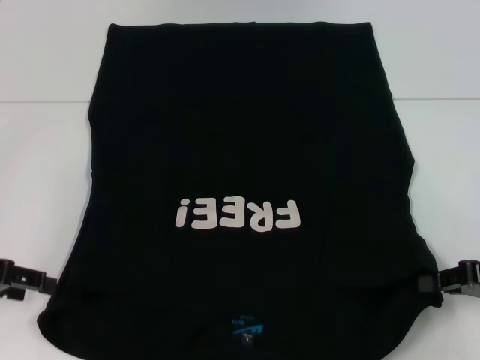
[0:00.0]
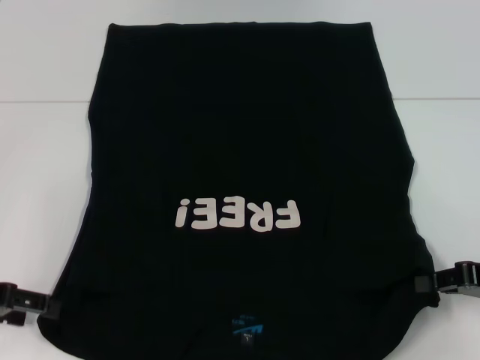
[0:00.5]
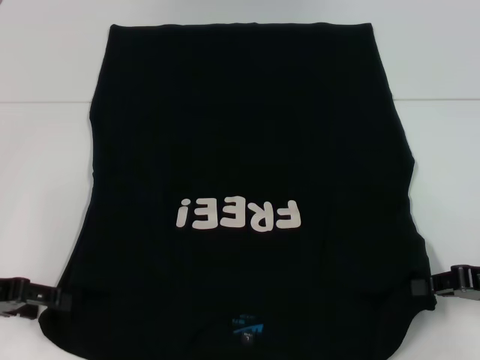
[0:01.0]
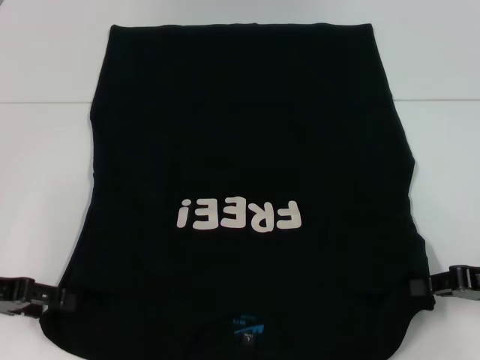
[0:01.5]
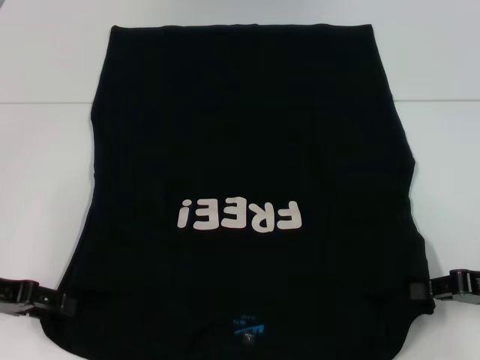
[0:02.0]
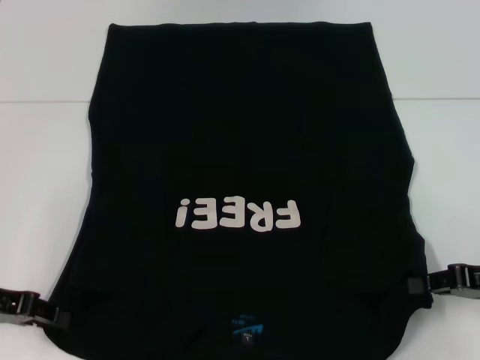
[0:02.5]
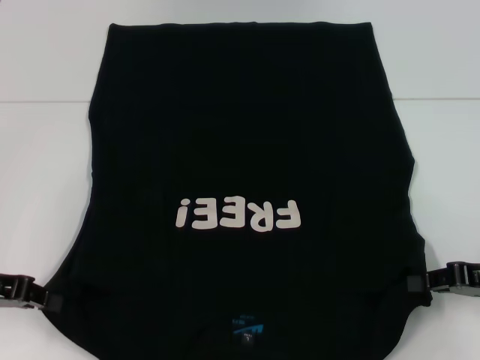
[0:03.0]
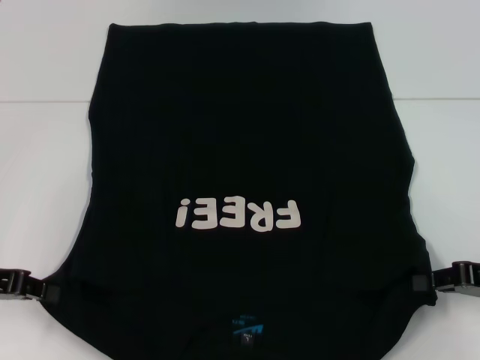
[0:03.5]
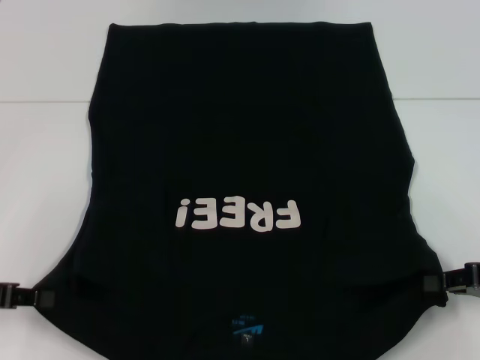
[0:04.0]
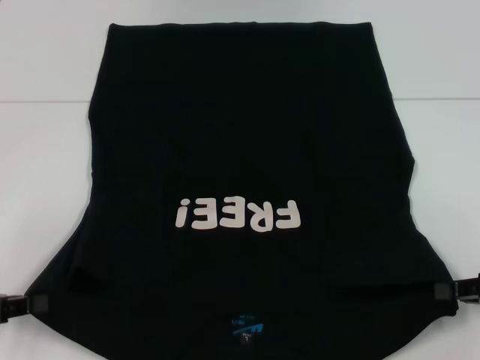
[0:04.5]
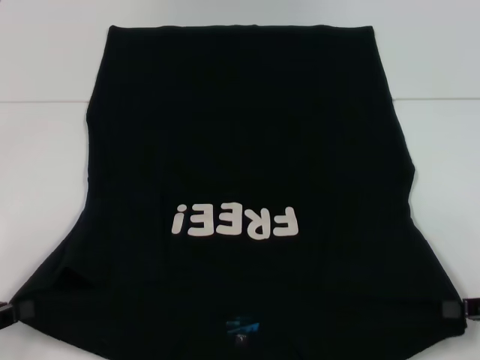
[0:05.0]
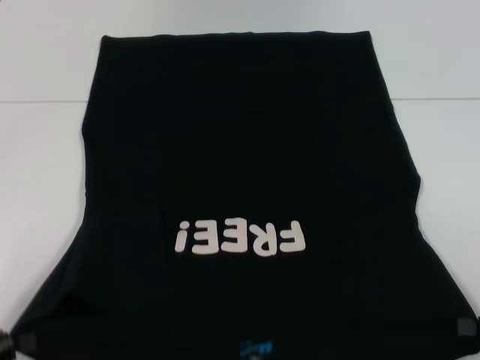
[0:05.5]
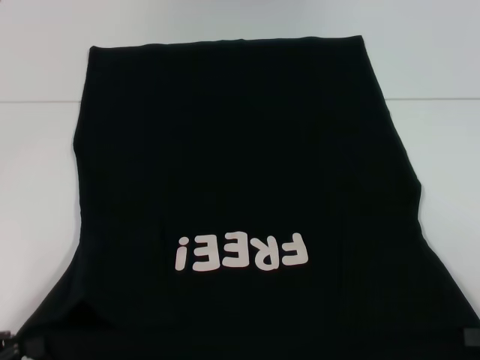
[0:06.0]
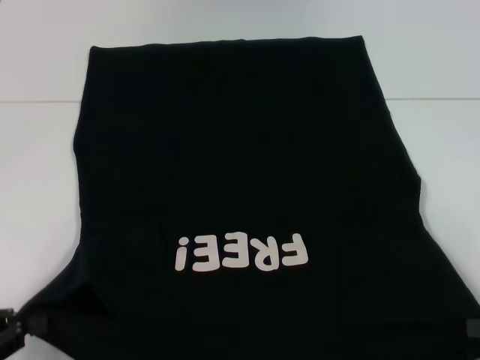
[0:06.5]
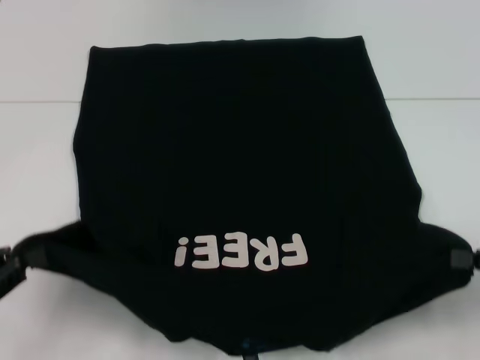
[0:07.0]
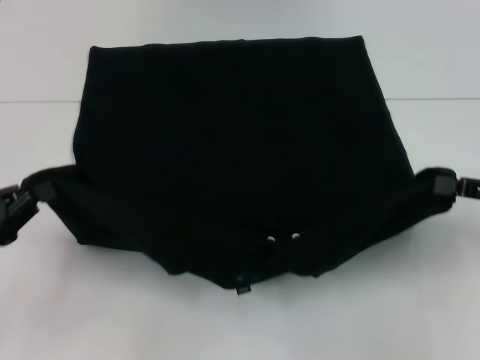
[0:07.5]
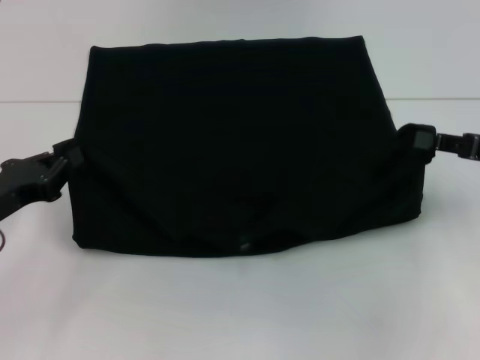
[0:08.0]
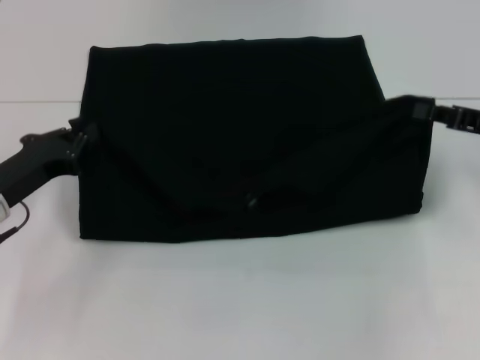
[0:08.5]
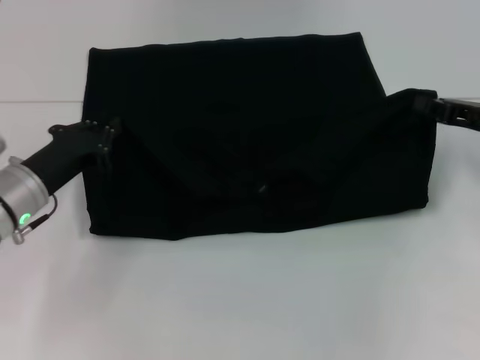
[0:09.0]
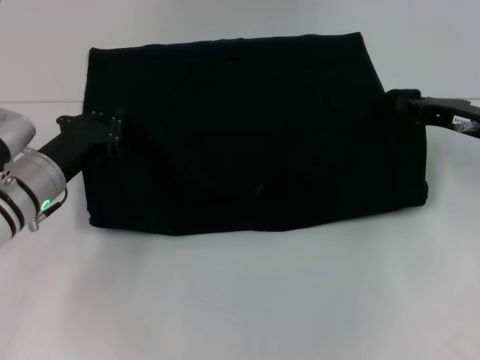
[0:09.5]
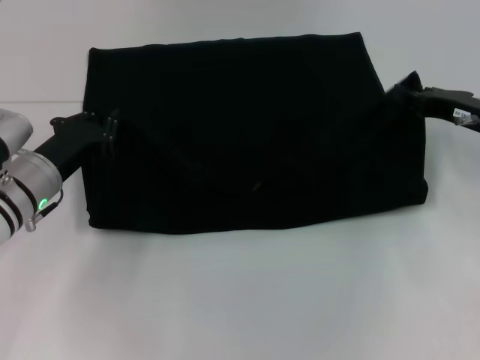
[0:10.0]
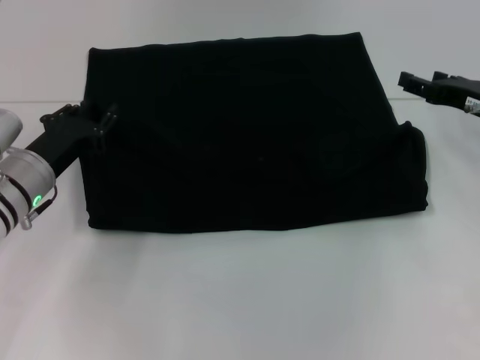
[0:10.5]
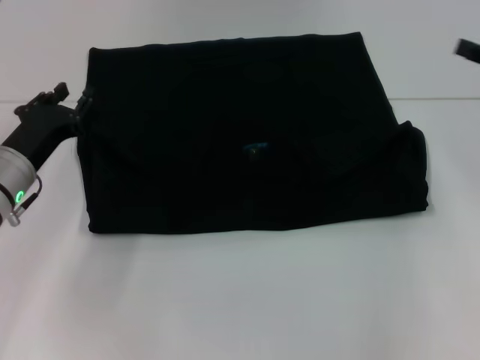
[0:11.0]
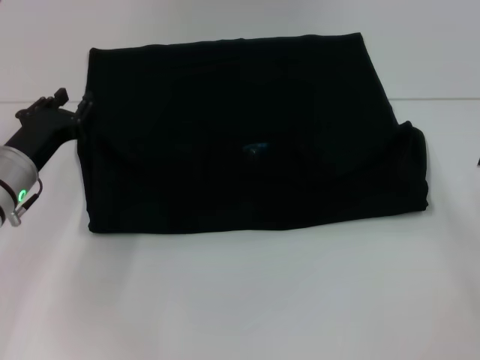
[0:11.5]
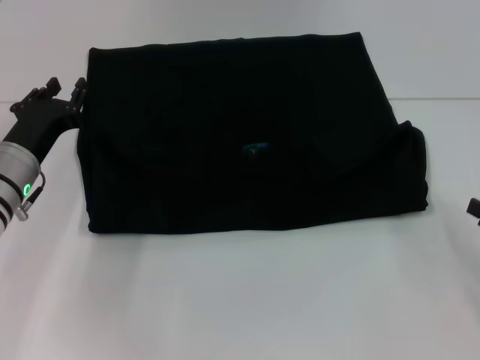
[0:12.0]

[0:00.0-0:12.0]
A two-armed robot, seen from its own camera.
Step, 0:00.0 to 0:03.0: Grab the bottom left corner with your left hand.
Step, 0:00.0 to 0:03.0: Grab the bottom right corner with your right hand.
Step, 0:03.5 to 0:10.5: Fold the clothes with your left hand.
Step, 0:03.5 to 0:10.5: Fold the clothes with your right hand.
0:00.0 to 0:02.0: The grippers move only a little.
0:02.0 to 0:04.0: The left gripper closes its fingers.
0:04.0 to 0:06.0: The left gripper moves backward, roughly 10 cm. The right gripper travels backward by some 5 cm.
0:06.0 to 0:08.0: The right gripper is displaced forward and upward by approximately 15 cm. The left gripper goes approximately 15 cm forward.
0:08.0 to 0:10.0: The right gripper is displaced forward by approximately 5 cm. The left gripper goes about 10 cm forward and to the right.
0:10.0 to 0:12.0: The right gripper heads backward, to the right and downward, covering approximately 20 cm, and opens up. Meanwhile the left gripper opens up.

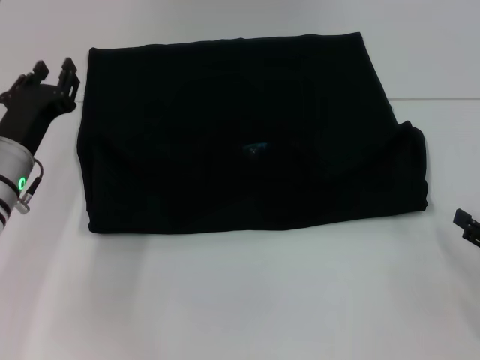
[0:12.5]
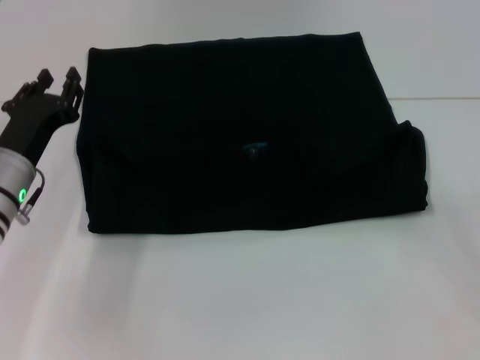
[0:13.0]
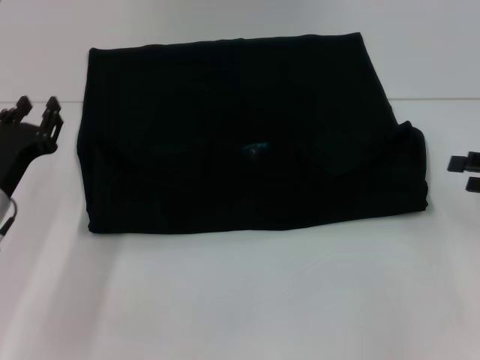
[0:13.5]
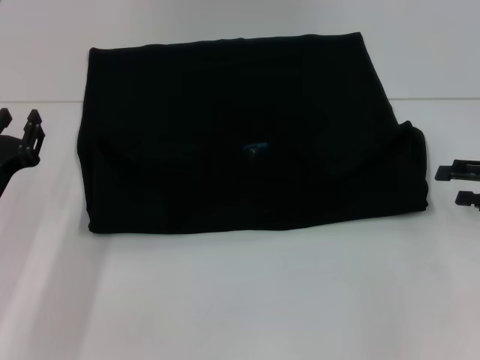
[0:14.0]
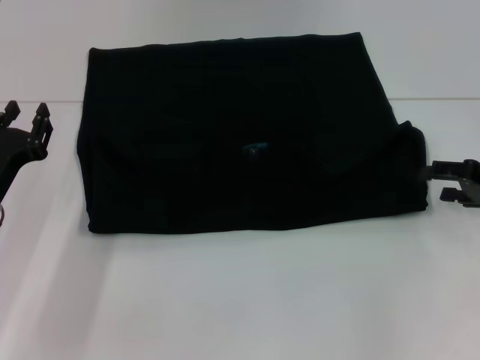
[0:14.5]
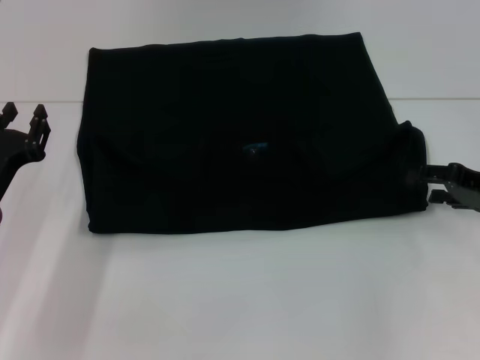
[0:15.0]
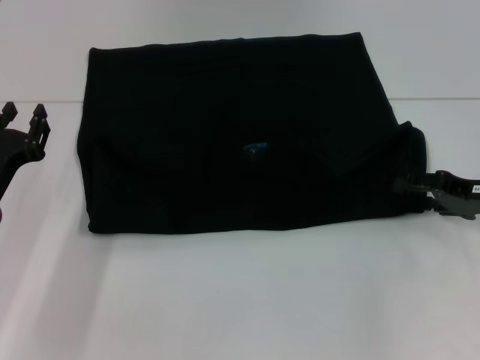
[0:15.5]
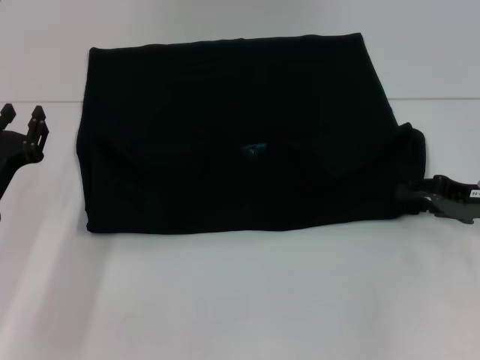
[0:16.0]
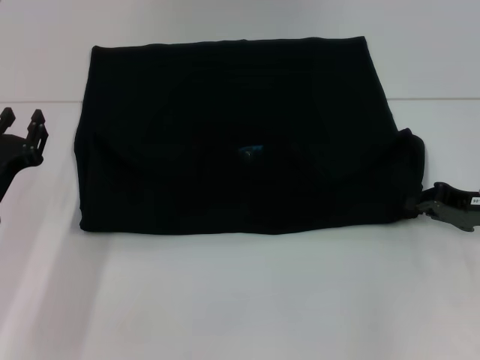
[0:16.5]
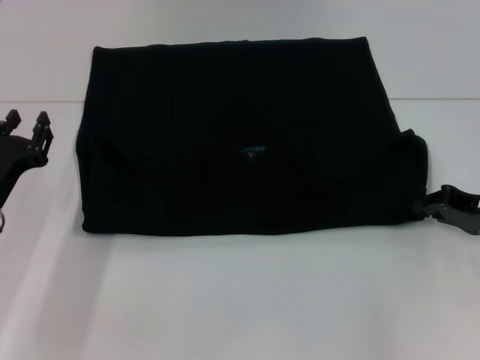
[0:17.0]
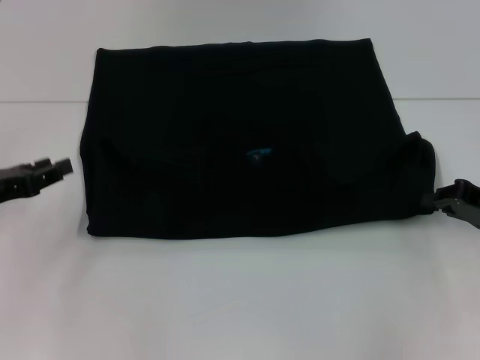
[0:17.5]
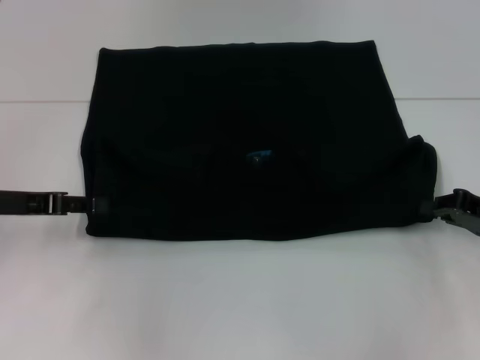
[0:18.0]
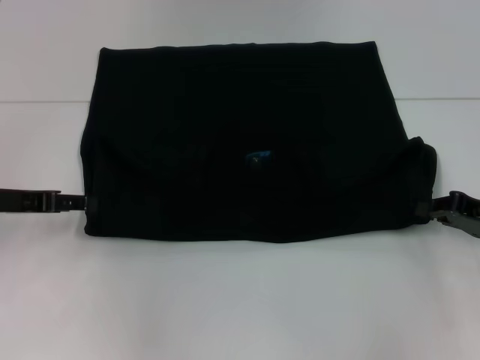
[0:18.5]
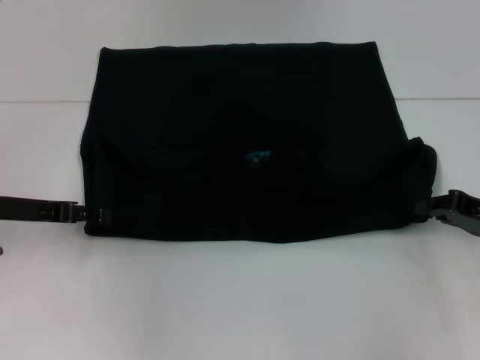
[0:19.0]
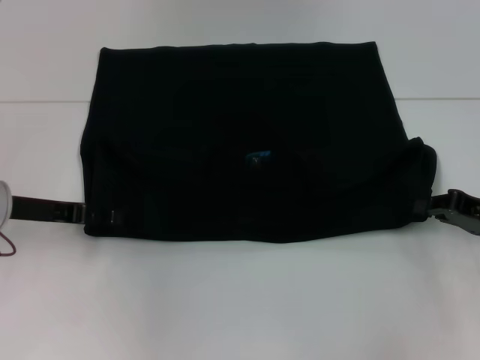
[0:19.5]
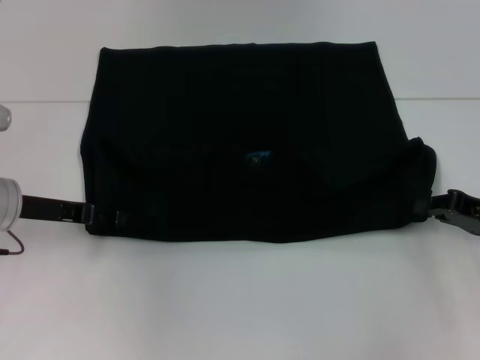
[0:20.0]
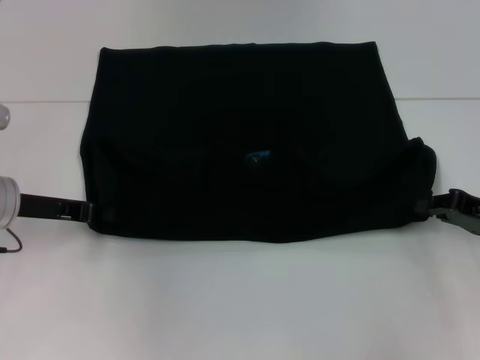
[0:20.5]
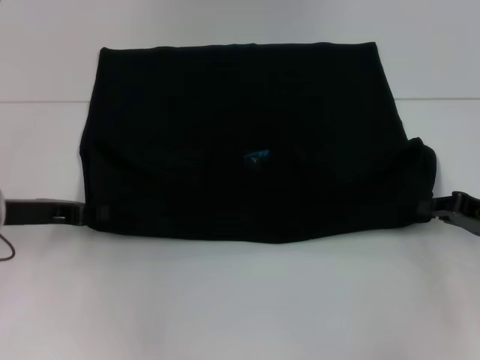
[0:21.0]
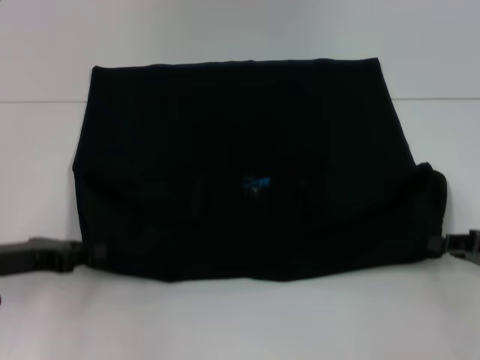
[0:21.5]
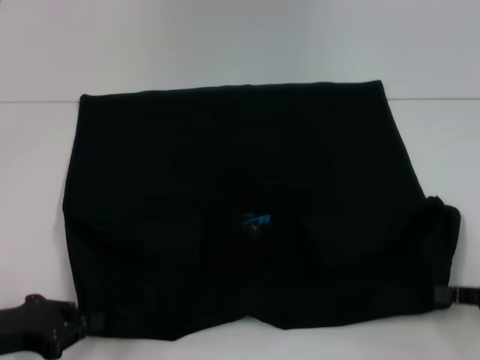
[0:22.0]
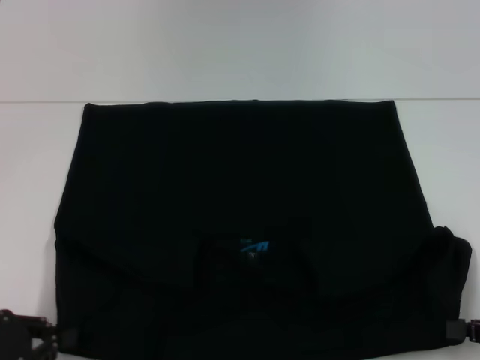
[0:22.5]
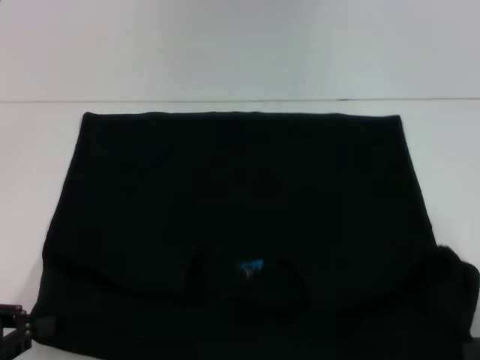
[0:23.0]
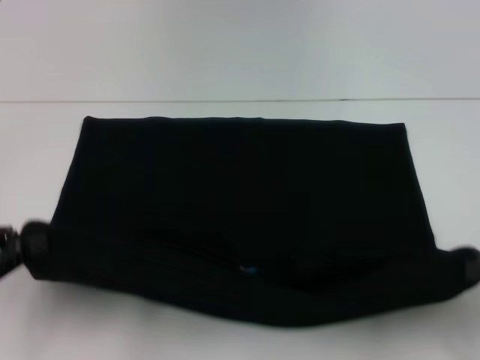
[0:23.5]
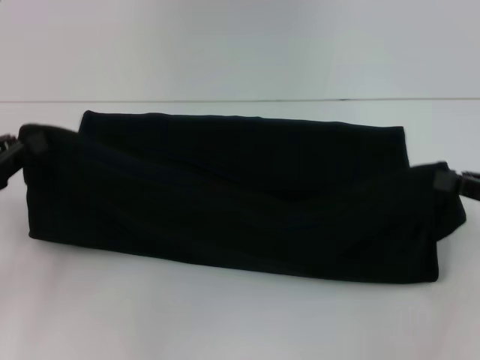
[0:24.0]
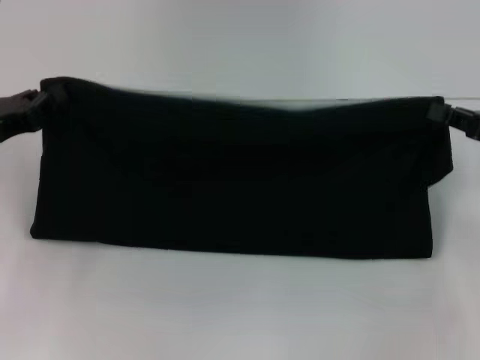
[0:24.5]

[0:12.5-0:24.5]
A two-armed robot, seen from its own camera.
Step, 0:12.5 to 0:22.0: Pull the clothes with your left hand.
Step, 0:12.5 to 0:22.0: Pull the clothes with your right hand.
0:12.5 to 0:14.5: The right gripper heads forward and upward, covering roughly 15 cm. The left gripper shifts by roughly 5 cm.
0:14.5 to 0:16.5: The right gripper closes up.
0:16.5 to 0:18.5: The left gripper travels upward by approximately 5 cm.
0:18.5 to 0:20.5: The left gripper closes.
0:20.5 to 0:22.5: The right gripper heads backward, covering some 10 cm. The left gripper is displaced backward by roughly 15 cm.
0:22.5 to 0:24.5: Both grippers move forward and upward, about 15 cm.

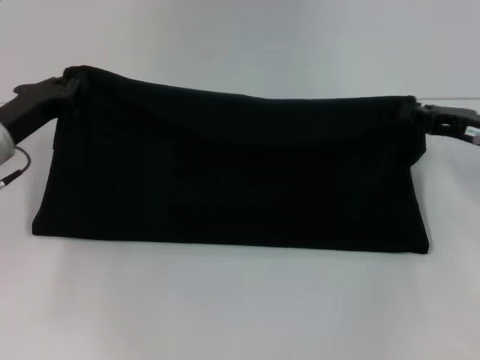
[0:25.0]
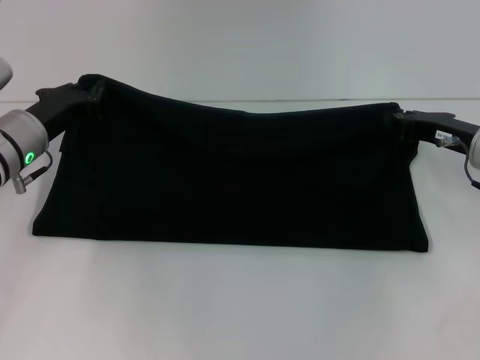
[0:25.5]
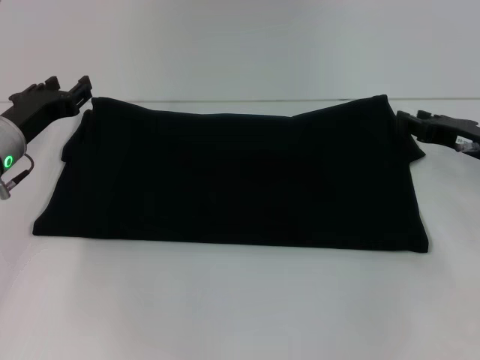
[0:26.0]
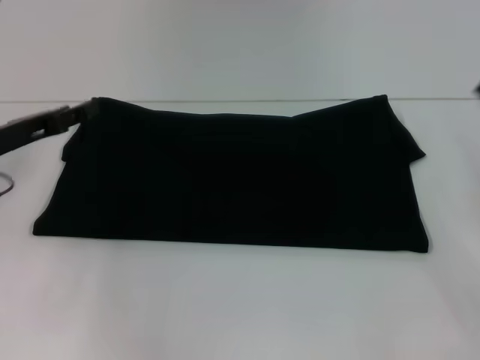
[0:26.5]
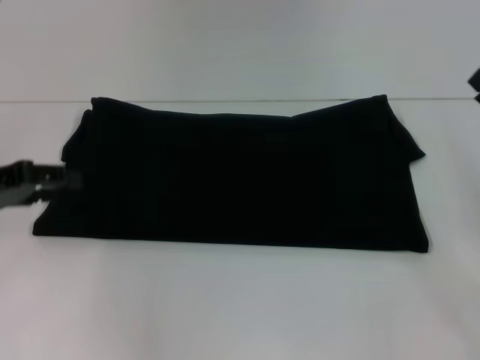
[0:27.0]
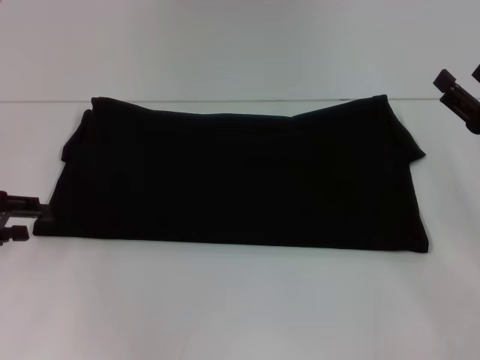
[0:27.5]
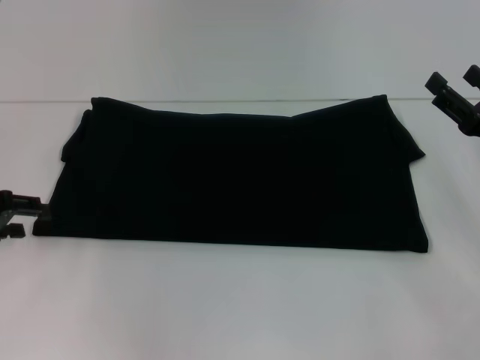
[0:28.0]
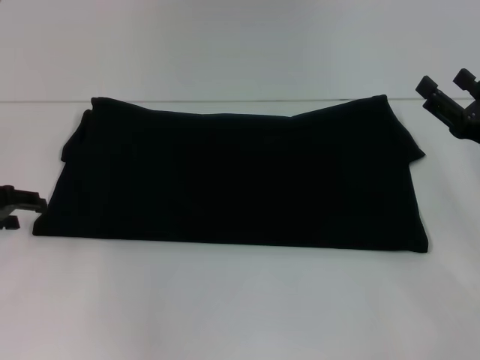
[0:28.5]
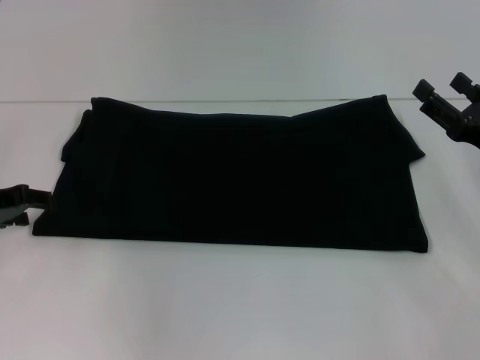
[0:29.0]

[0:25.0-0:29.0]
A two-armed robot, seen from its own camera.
0:25.0 to 0:27.0: The left gripper goes about 5 cm backward and to the left, and opens, while the right gripper travels backward by some 5 cm, and opens.
0:27.0 to 0:29.0: The grippers stay close to where they were, moving slightly.
